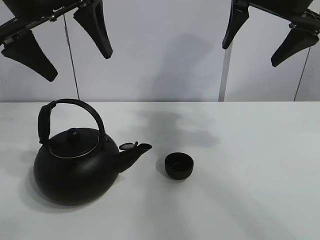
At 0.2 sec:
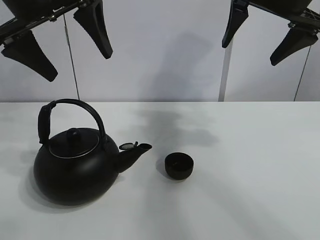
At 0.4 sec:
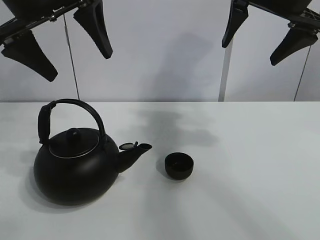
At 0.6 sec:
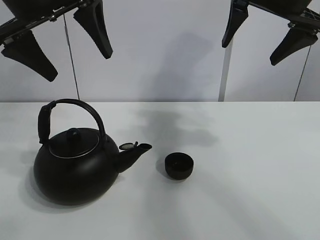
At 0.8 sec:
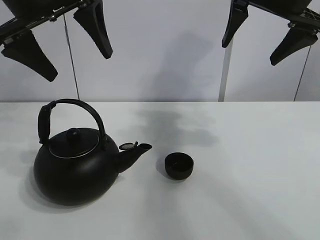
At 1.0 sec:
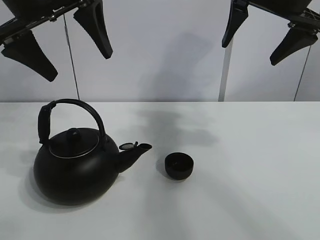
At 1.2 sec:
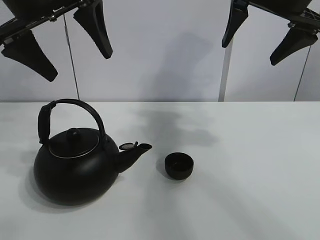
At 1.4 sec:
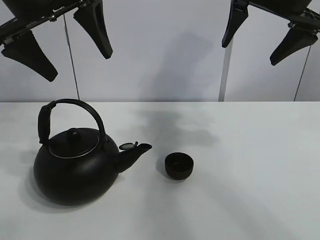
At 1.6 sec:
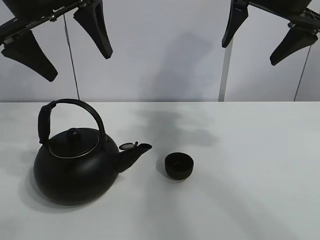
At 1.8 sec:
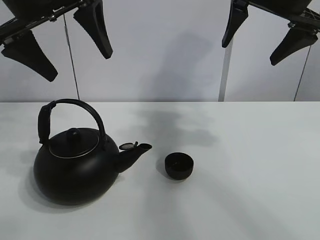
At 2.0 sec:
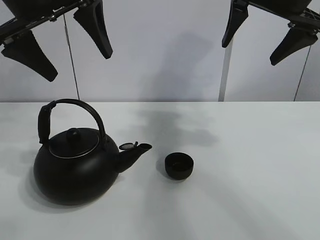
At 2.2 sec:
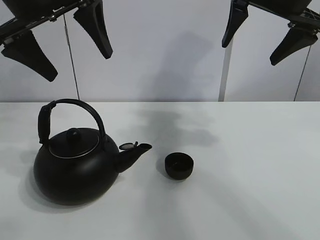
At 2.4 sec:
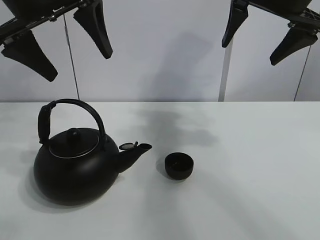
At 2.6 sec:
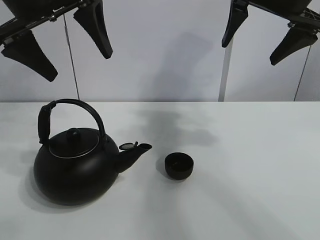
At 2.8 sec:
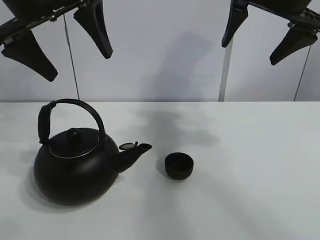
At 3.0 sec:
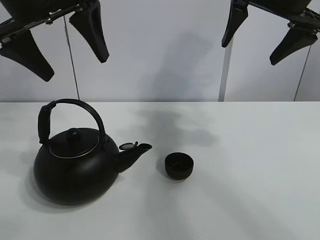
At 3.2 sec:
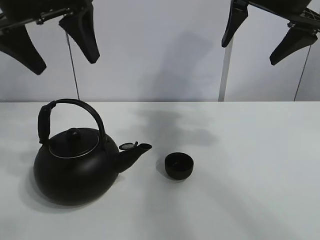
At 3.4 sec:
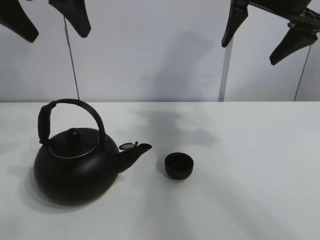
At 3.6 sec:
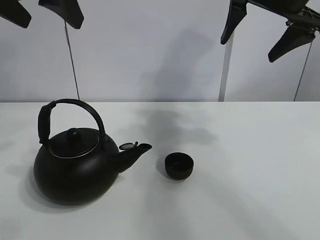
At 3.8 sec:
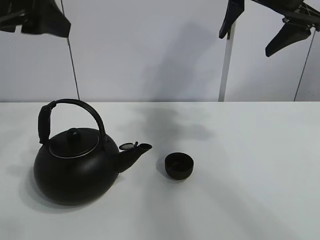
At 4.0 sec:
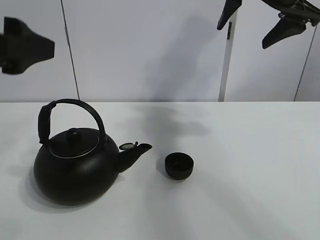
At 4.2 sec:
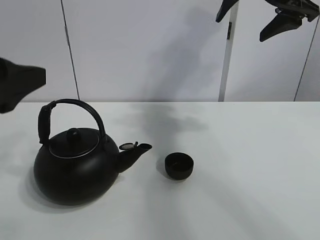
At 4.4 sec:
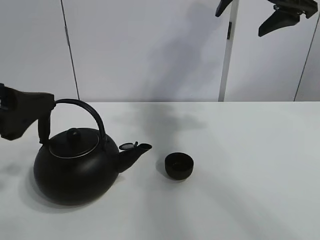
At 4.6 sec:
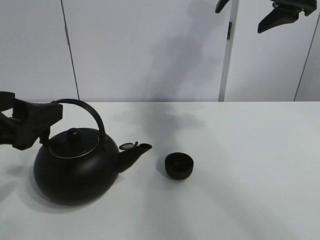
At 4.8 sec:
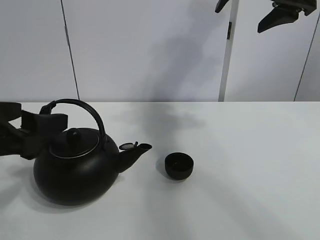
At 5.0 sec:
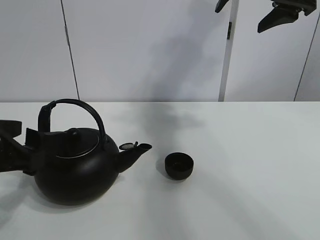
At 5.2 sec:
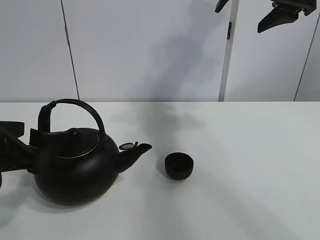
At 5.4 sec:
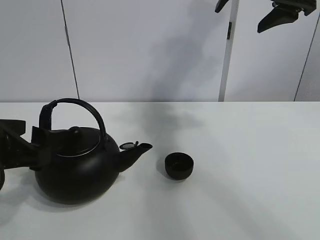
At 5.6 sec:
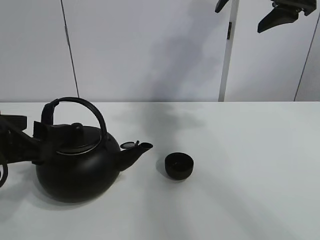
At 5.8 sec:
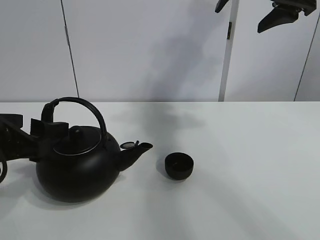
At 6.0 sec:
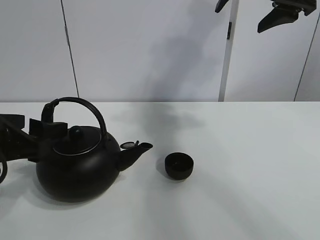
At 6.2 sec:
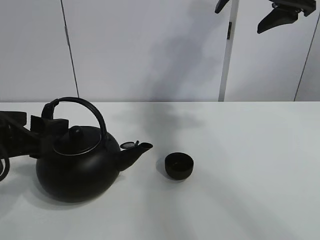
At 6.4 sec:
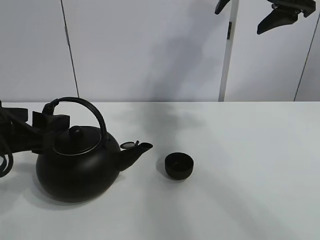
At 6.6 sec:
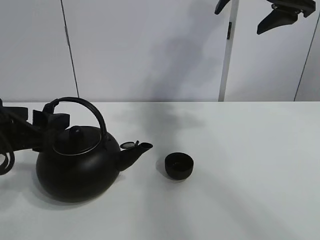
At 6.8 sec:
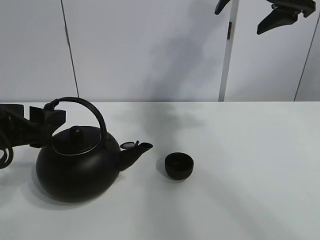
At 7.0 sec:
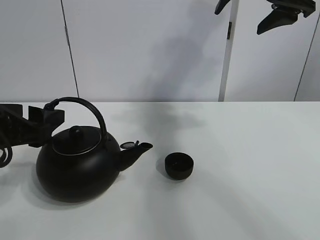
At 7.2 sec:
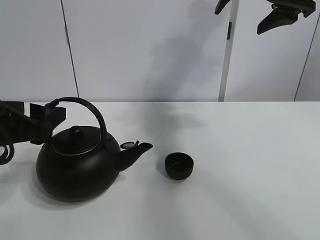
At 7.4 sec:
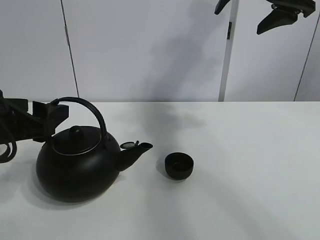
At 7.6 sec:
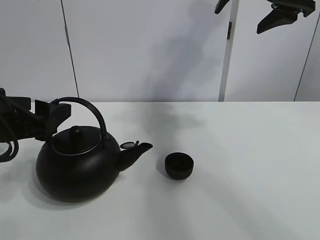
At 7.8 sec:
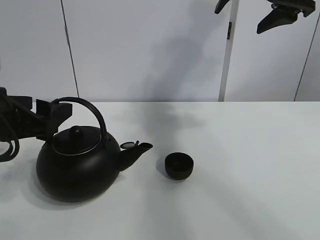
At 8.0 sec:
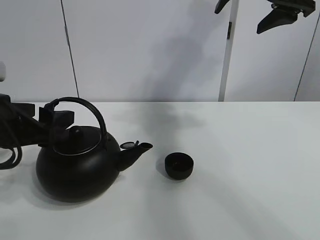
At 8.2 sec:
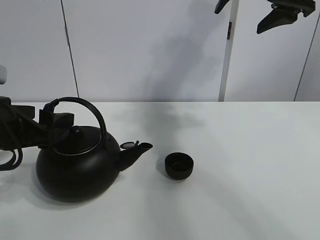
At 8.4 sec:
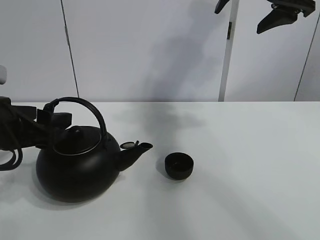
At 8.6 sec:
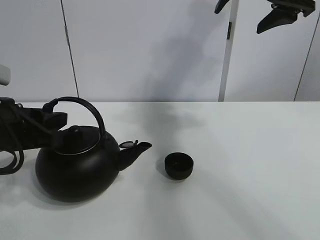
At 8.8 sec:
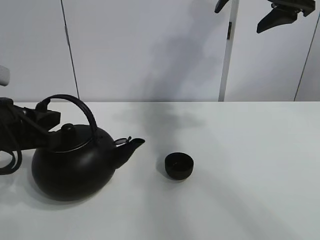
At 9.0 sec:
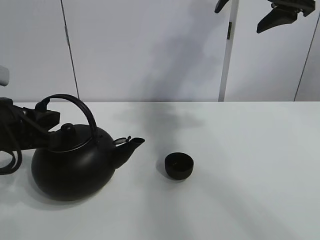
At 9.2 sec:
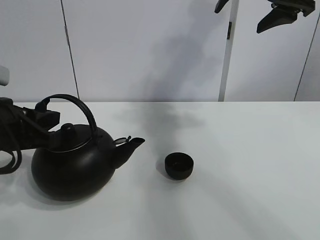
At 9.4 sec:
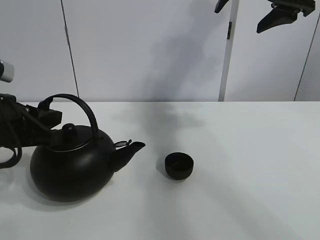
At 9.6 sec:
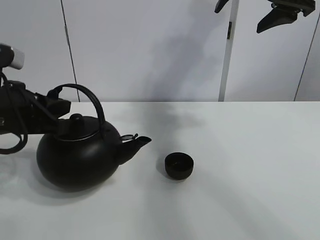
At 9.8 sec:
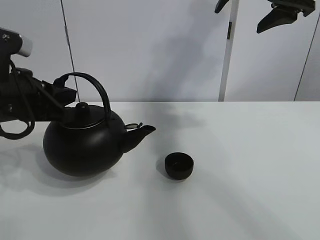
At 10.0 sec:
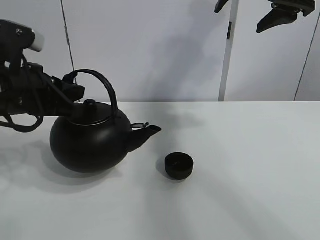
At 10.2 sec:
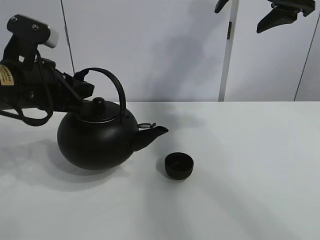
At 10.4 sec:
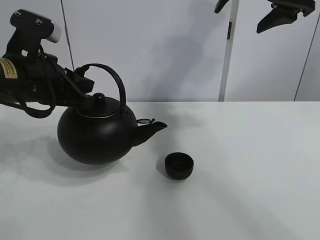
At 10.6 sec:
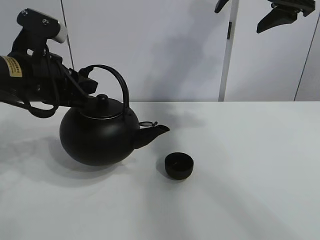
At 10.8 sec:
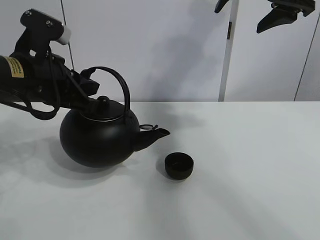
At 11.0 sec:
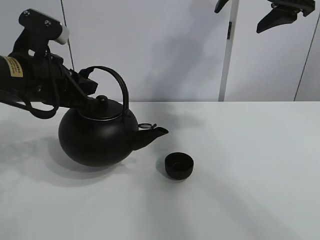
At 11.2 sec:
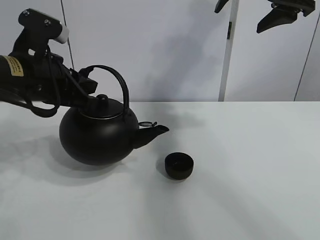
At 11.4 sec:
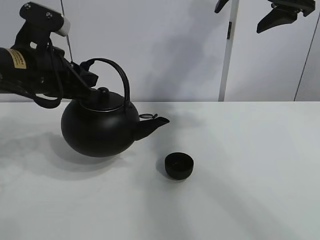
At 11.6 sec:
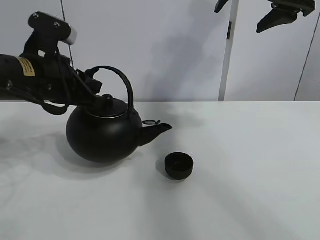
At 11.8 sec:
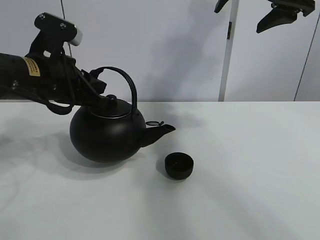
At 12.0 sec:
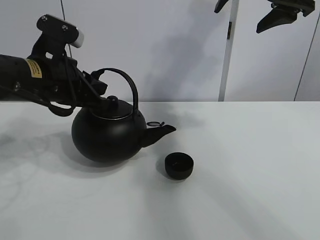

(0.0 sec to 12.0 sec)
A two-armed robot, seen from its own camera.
Task of the whole recording: pour tea into the teacup.
Step, 0.0 sec - 9.0 sec: Pick up the teapot with the left gripper.
0.0 sec - 3.0 sec: Neither gripper changes place.
3.0 sec - 4.4 sec: The left gripper goes about 20 cm backward, downward and to the left.
4.4 sec - 6.0 sec: The left gripper goes some 5 cm downward.
6.0 sec - 7.6 sec: The grippers move only a little.
7.6 sec - 9.0 sec: The left gripper closes up.
9.0 sec - 10.4 sec: The left gripper travels forward and upward by about 10 cm.
10.4 sec - 12.0 sec: The grippers move only a little.

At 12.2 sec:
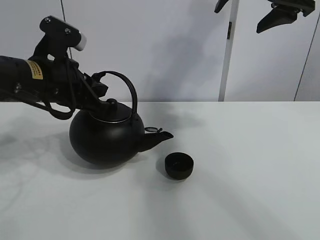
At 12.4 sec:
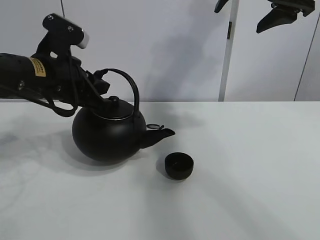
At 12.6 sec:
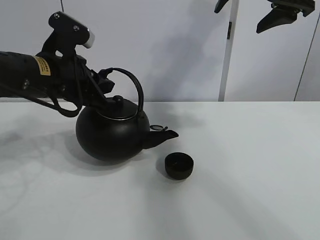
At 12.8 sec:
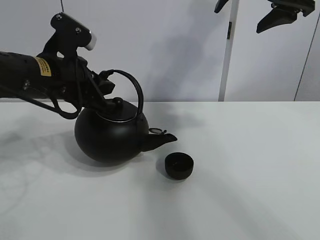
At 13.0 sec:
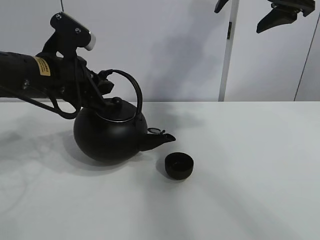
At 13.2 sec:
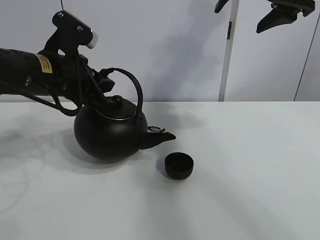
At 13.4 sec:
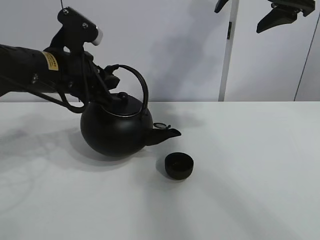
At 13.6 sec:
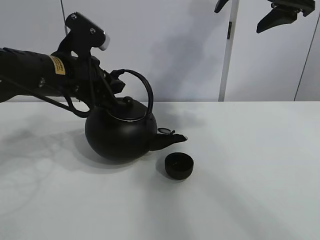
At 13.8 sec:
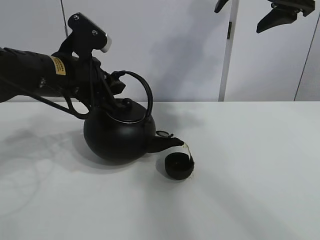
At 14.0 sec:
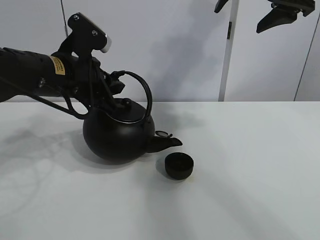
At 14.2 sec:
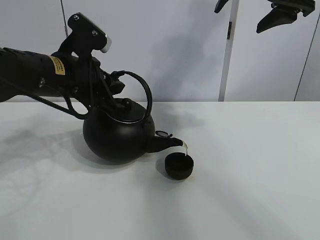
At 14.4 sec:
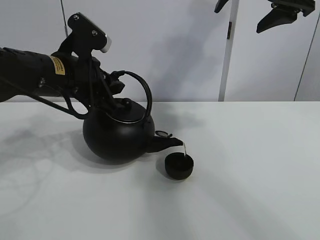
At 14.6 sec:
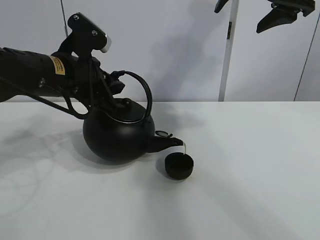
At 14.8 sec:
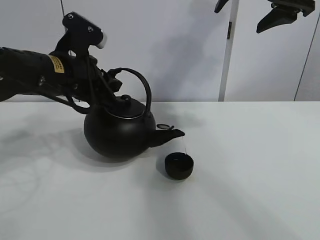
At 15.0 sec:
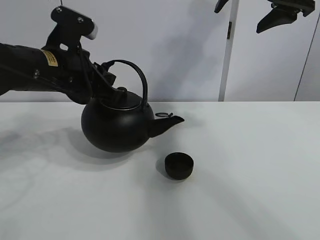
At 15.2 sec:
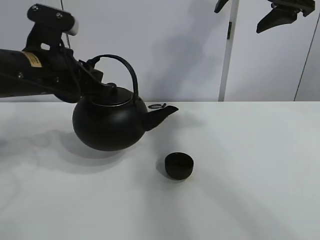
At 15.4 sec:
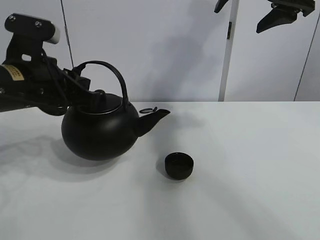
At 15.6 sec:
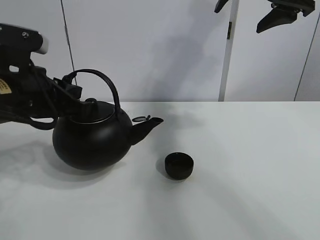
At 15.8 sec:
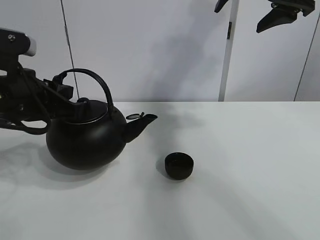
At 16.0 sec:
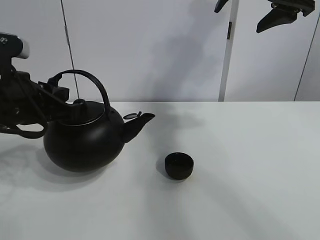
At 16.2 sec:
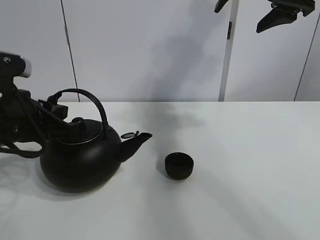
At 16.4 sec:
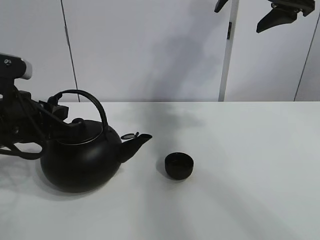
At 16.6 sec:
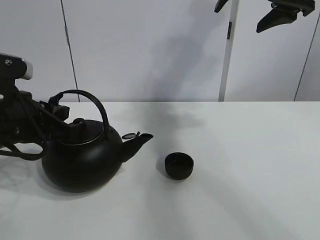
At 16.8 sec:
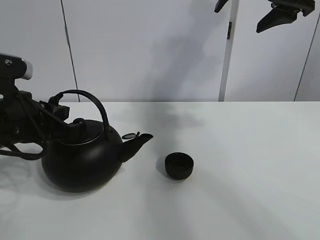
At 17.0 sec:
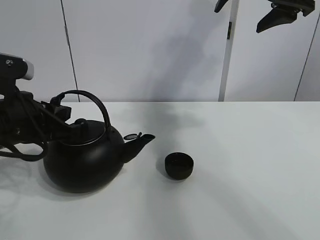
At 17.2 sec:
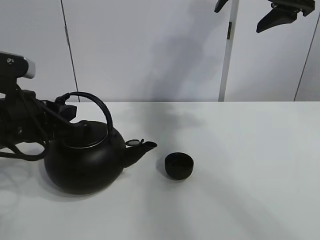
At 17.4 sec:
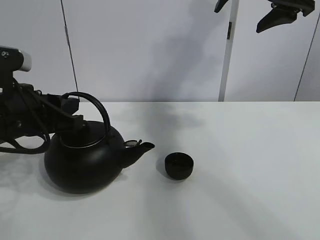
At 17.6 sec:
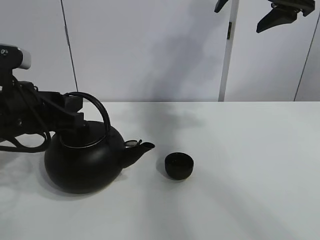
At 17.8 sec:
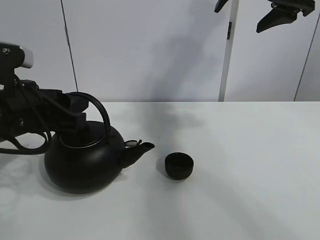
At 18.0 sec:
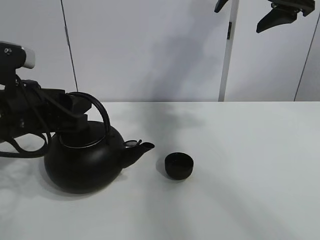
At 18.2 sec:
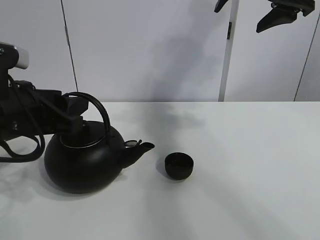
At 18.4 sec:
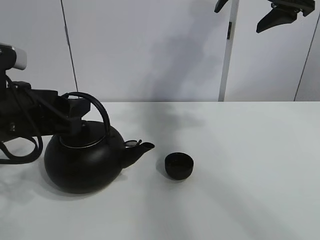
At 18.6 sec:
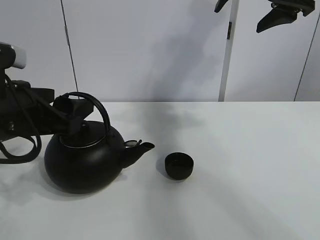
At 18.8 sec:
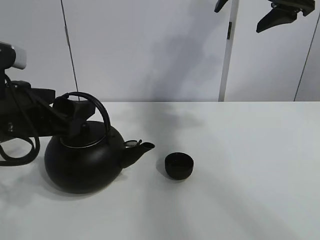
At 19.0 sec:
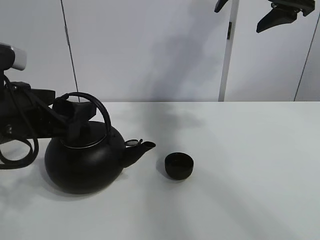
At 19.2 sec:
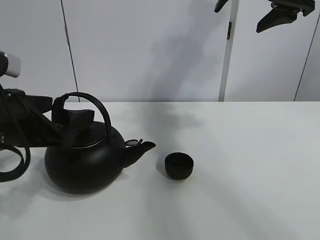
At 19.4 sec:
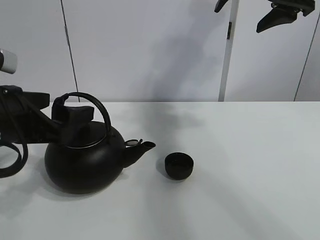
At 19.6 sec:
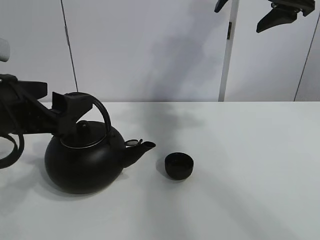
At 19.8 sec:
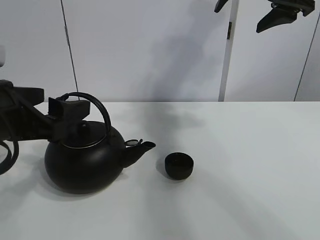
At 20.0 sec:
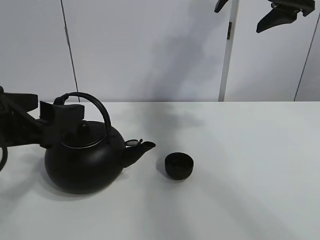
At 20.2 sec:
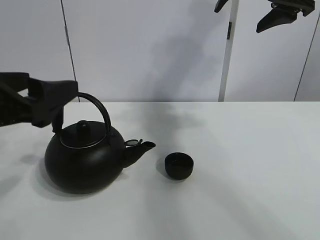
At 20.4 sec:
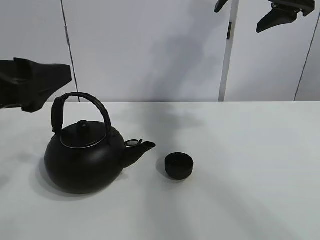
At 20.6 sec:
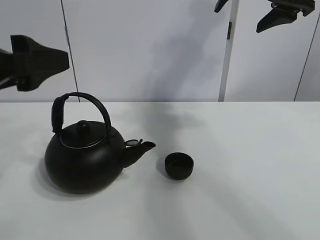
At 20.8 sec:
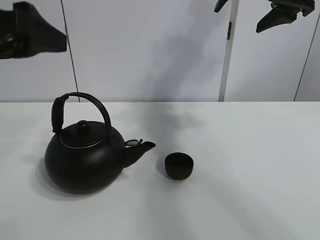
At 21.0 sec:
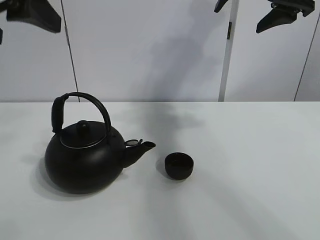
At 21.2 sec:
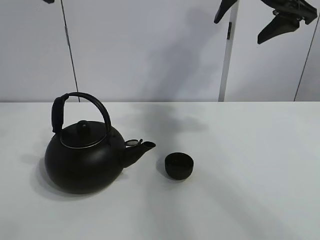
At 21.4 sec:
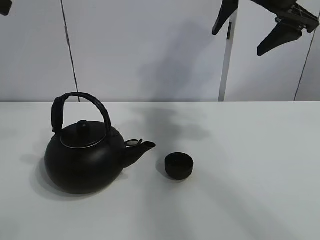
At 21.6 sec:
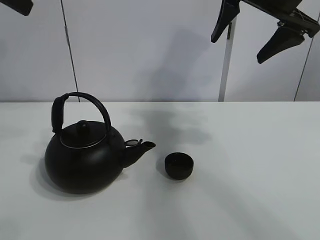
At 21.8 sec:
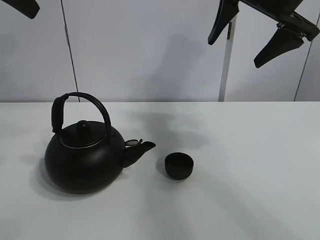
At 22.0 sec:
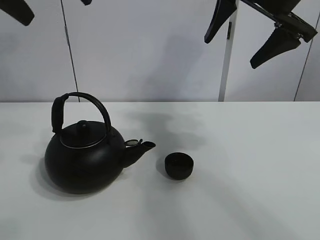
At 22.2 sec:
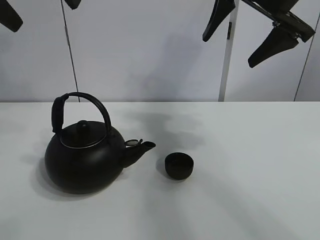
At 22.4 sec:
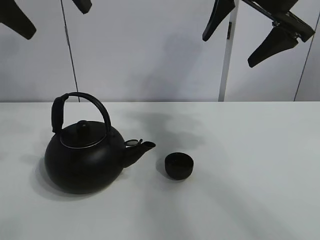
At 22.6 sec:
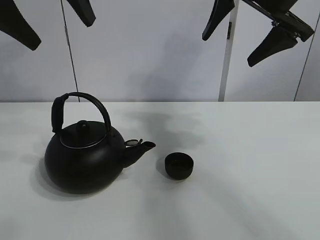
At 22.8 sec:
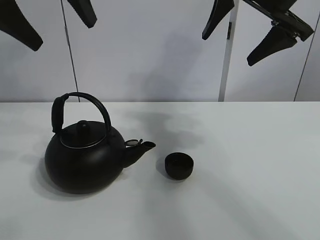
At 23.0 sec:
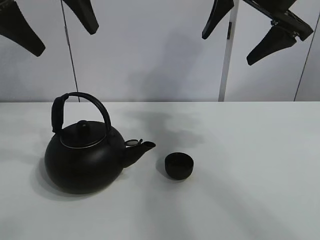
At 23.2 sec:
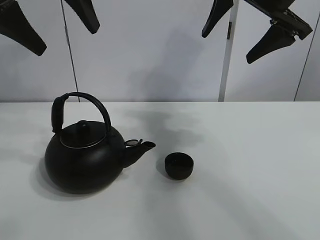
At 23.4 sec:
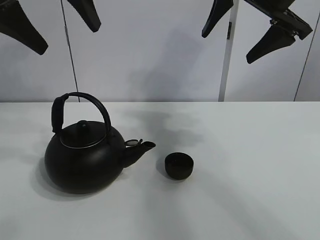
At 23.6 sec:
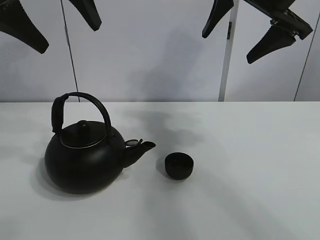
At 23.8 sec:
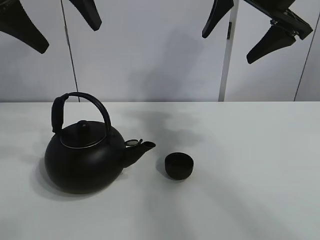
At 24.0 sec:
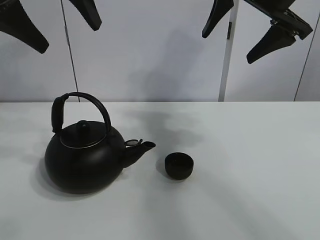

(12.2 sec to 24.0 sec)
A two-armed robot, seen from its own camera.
Task of the whole recording: pour tea into the teacup.
Step, 12.2 sec - 14.8 sec: Pour tea into the teacup with the left gripper.
12.2 sec - 15.2 sec: The grippers make only small movements.
15.2 sec - 16.6 sec: The left gripper is displaced backward and downward by roughly 10 cm.
16.6 sec - 18.2 sec: The left gripper opens up.
18.2 sec - 19.6 sec: The left gripper opens up.
19.6 sec - 21.0 sec: The left gripper goes roughly 15 cm upward.
21.0 sec - 22.6 sec: The left gripper shifts some 10 cm forward.
22.6 sec - 24.0 sec: The grippers make only small movements.
